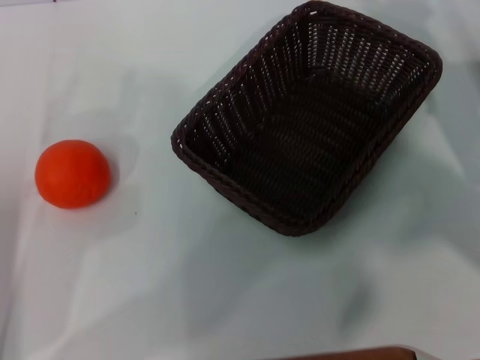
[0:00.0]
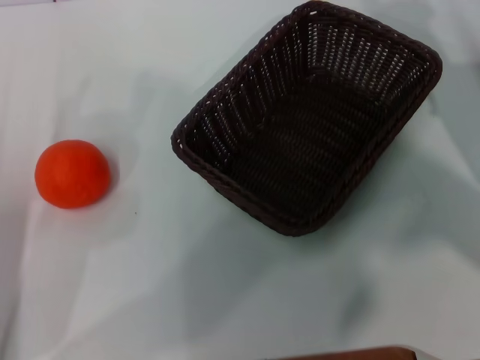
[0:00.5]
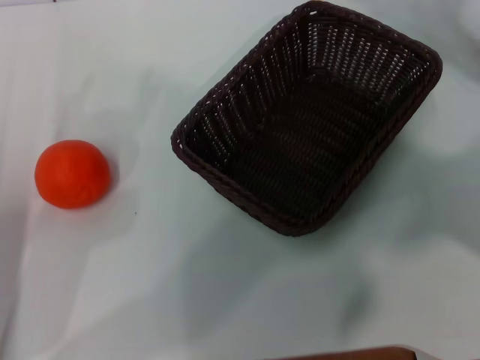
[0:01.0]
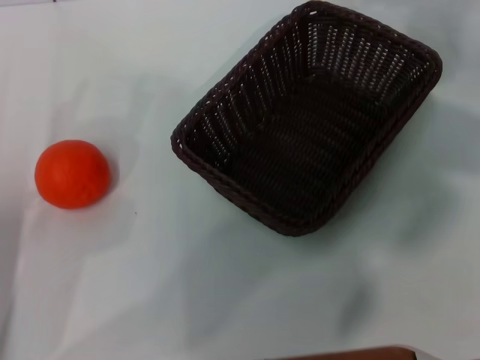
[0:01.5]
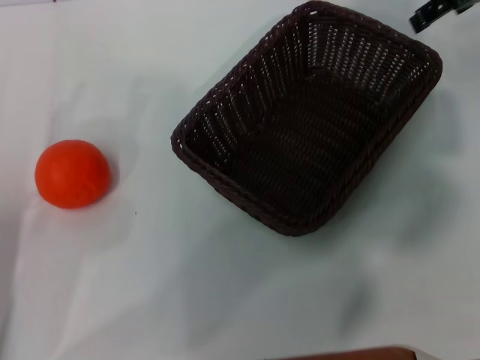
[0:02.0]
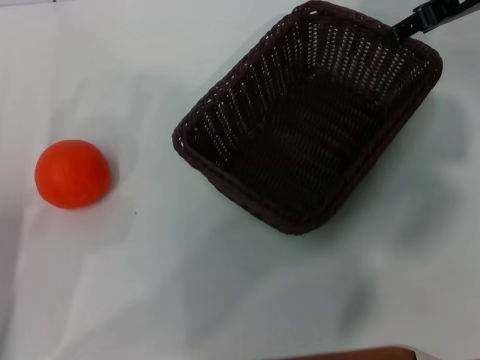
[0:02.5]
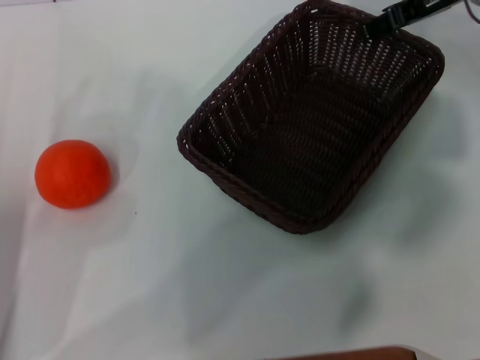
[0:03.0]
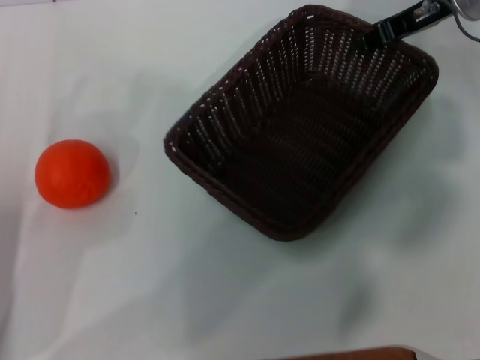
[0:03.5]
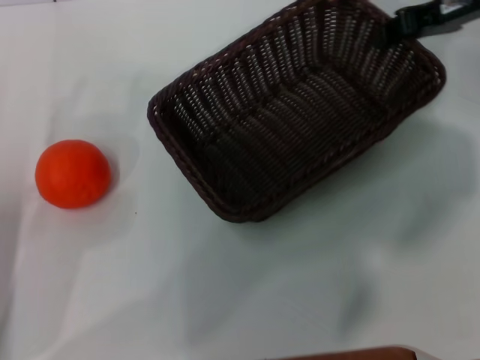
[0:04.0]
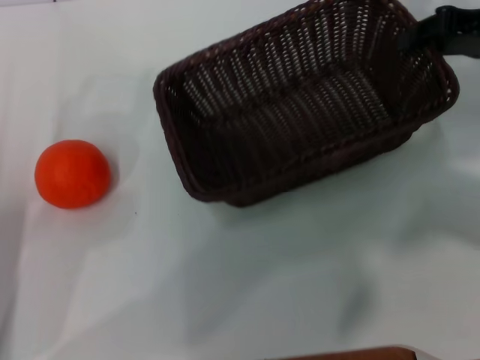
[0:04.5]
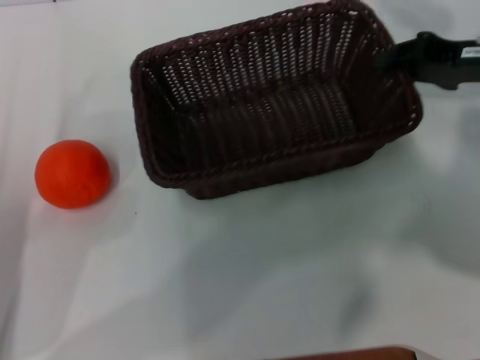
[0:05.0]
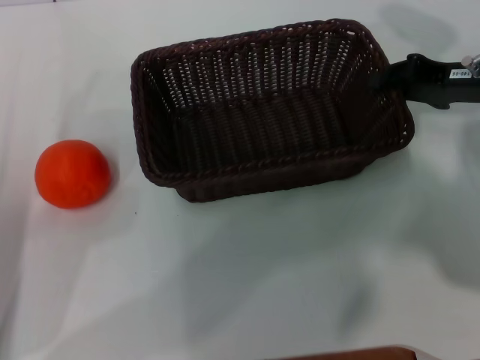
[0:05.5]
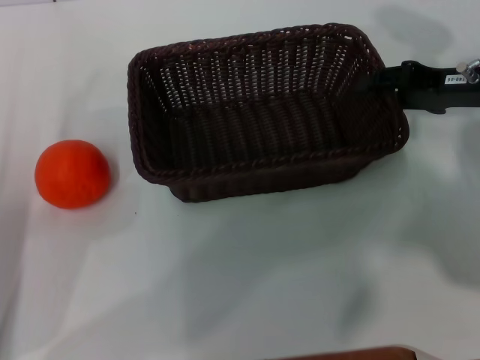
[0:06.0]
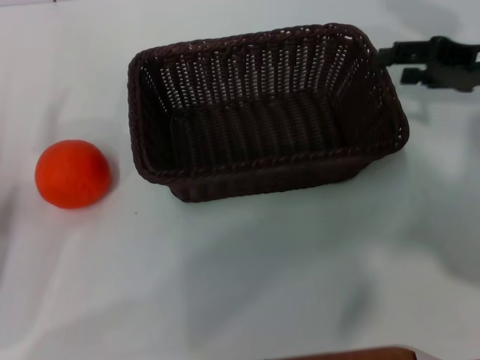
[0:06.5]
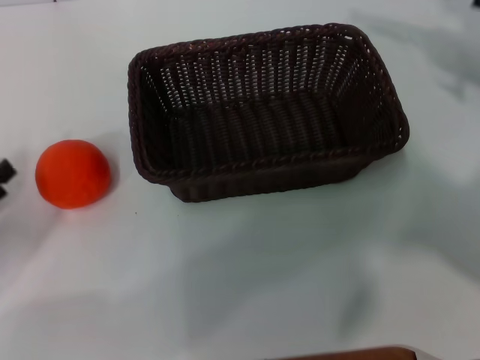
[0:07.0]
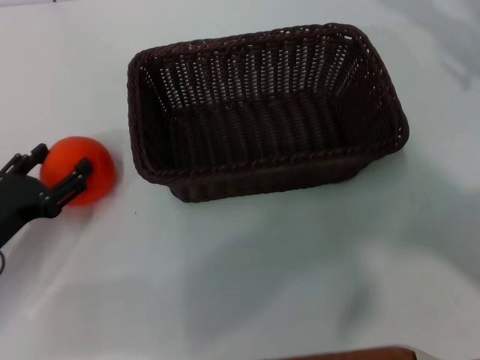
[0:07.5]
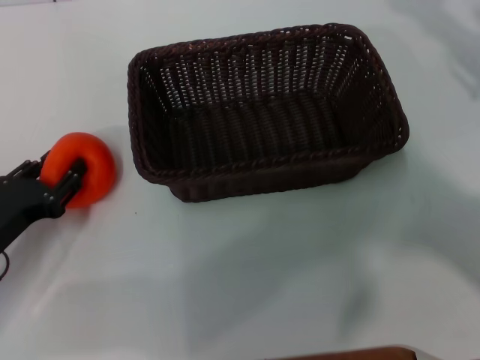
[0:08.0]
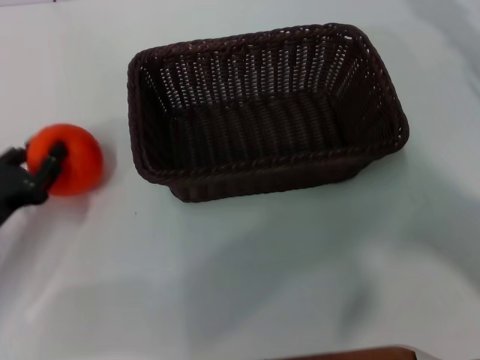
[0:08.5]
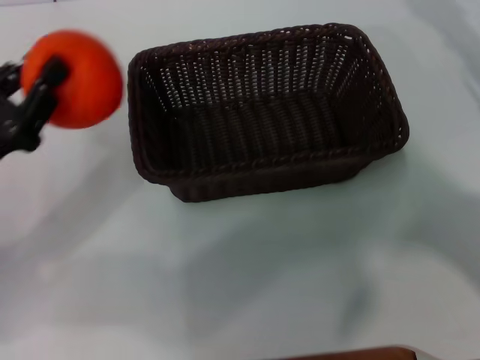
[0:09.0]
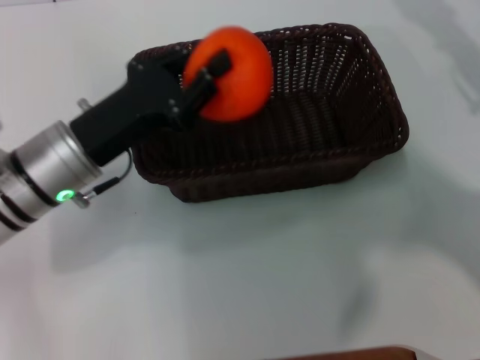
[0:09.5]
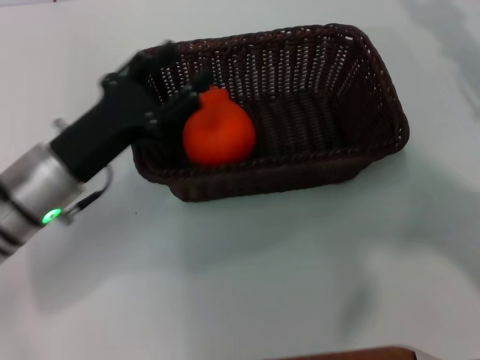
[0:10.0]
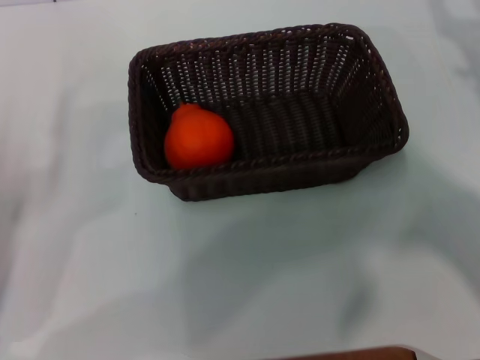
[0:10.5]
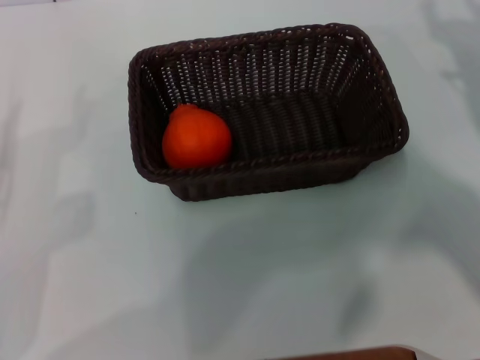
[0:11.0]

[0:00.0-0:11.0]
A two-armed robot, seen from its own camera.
Task of the whole recording: the right gripper pick up the black basket and place it horizontally in the middle of the table, the left gripper pick up the orange and place it into the black basket.
Step, 0:00.0 to 0:04.0: Pick up the dark basket with the right gripper.
Step, 0:04.5 to 0:06.5: Place the dark basket in the center of view with the right gripper.
Step, 0:07.0 to 0:09.0: Pick up the orange with the left gripper.
0:00.0 to 0:02.0: The right gripper heads upward and forward, covering some 20 cm.
0:02.0 to 0:03.5: The right gripper moves downward, approximately 10 cm, and closes.
0:03.5 to 0:05.5: The right gripper is displaced backward by approximately 10 cm, and closes.
0:05.5 to 0:07.5: The right gripper is displaced to the right and upward by roughly 10 cm, and opens its fingers.
0:07.5 to 0:09.0: The left gripper heads upward, covering some 5 cm, and closes up.
0:09.0 to 0:11.0: The right gripper travels downward by roughly 5 cm; the left gripper is displaced downward and backward by roughly 10 cm, moves approximately 10 cm to the right and comes back, and opens its fingers.
